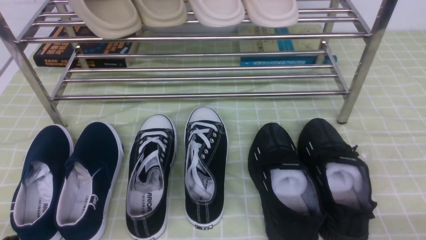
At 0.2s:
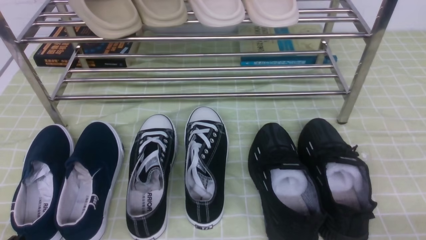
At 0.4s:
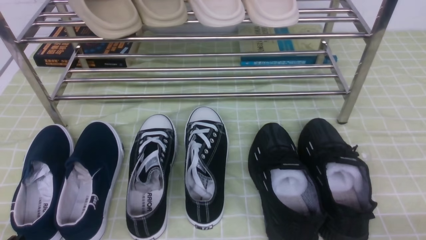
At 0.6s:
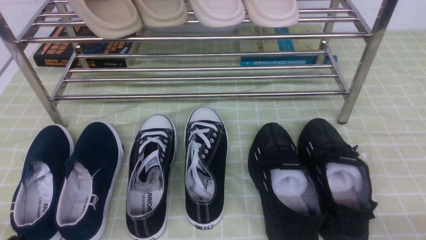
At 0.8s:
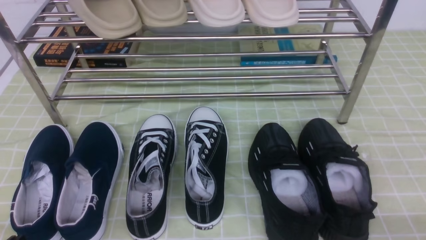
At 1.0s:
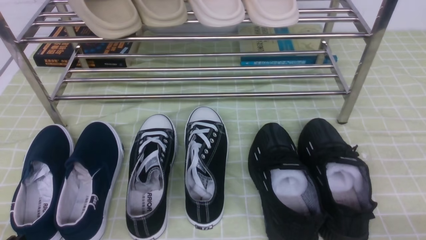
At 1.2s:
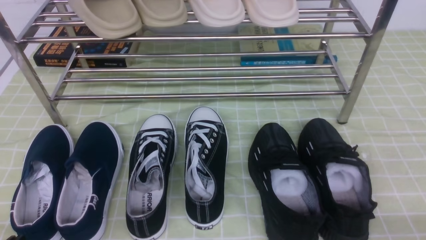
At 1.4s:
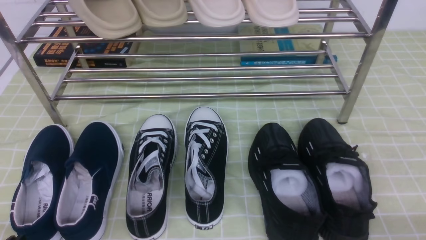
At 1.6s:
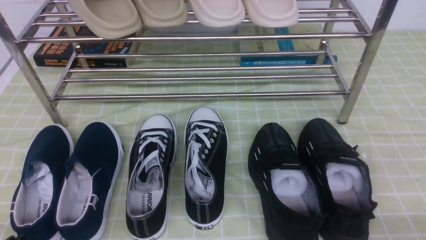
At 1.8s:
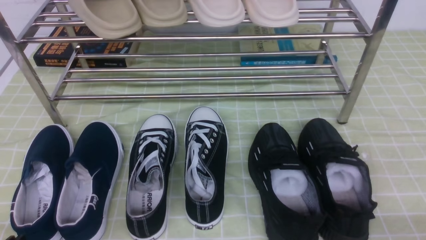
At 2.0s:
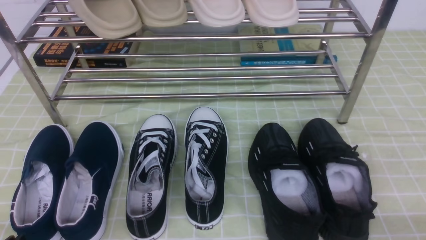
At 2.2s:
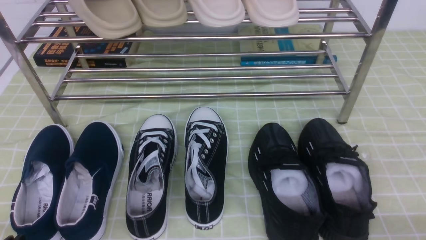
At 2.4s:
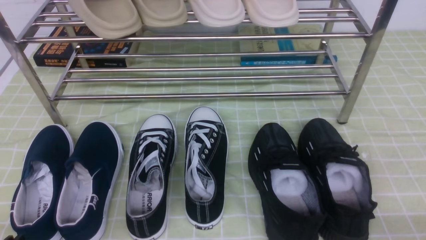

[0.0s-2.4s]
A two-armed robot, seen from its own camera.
0.0s to 2.4s: Both grippers stay about where they are.

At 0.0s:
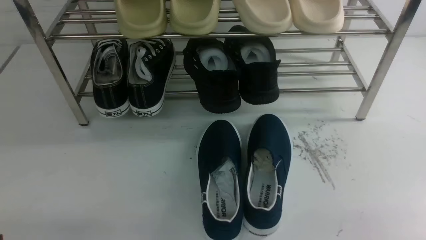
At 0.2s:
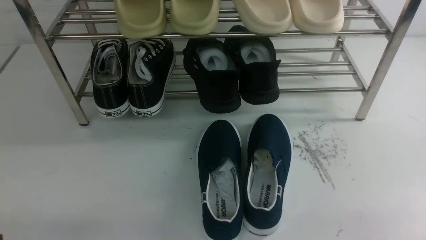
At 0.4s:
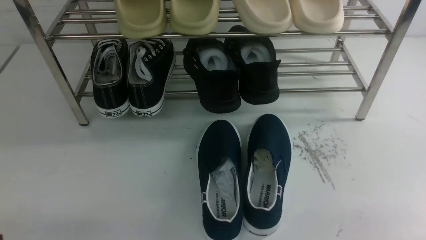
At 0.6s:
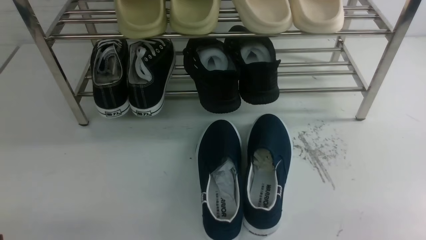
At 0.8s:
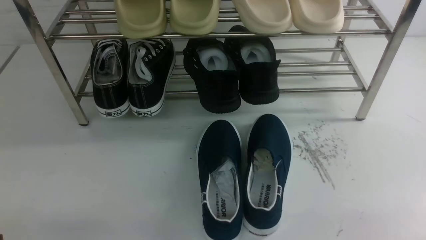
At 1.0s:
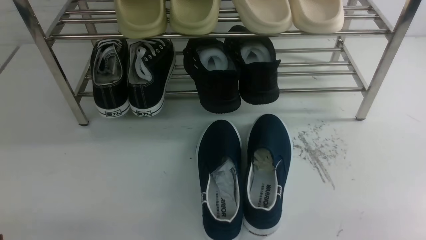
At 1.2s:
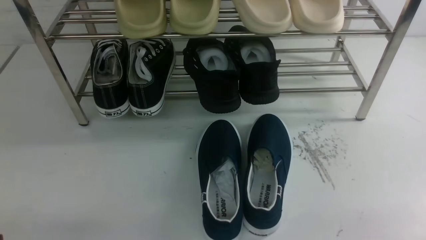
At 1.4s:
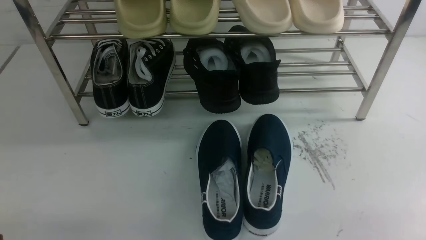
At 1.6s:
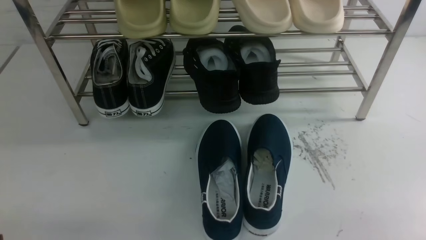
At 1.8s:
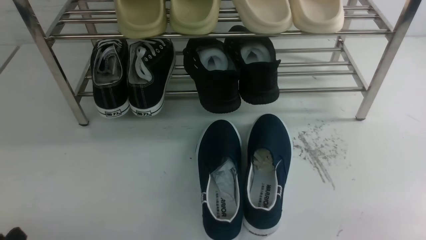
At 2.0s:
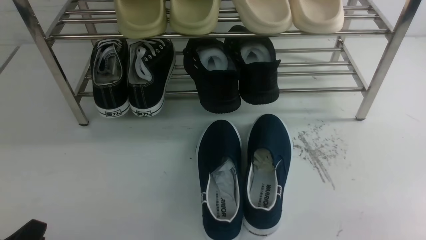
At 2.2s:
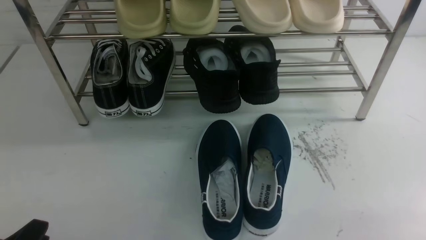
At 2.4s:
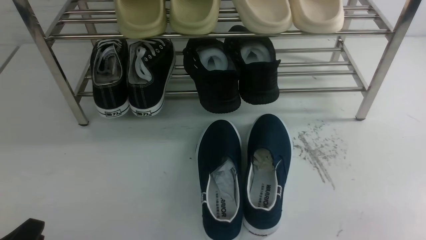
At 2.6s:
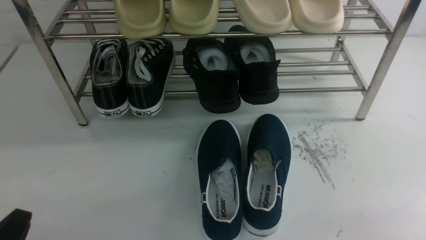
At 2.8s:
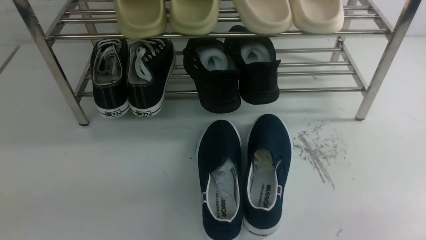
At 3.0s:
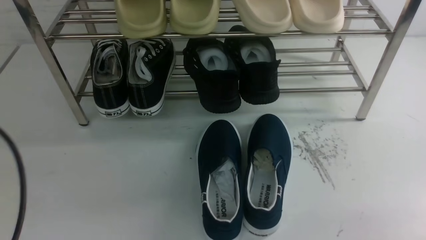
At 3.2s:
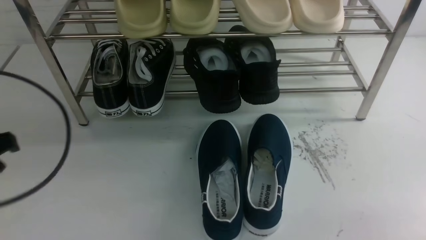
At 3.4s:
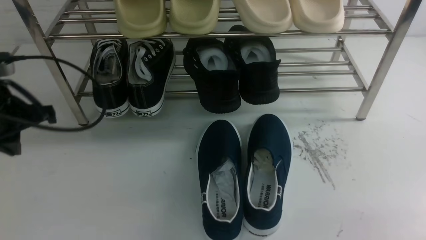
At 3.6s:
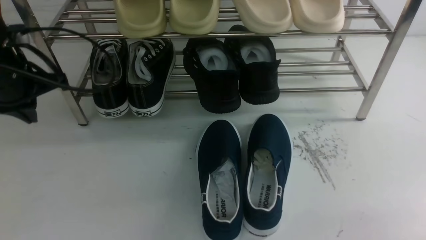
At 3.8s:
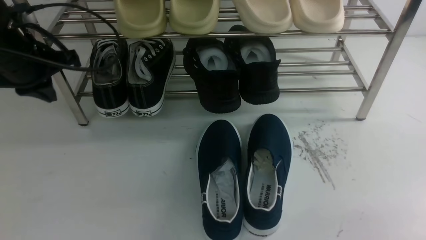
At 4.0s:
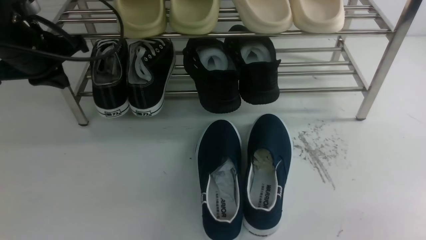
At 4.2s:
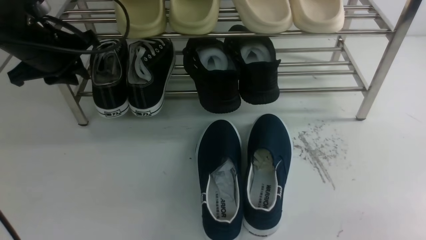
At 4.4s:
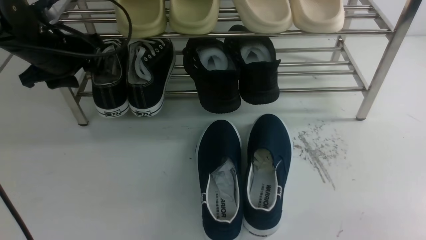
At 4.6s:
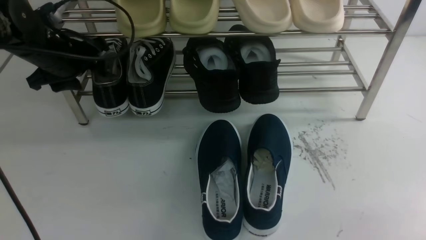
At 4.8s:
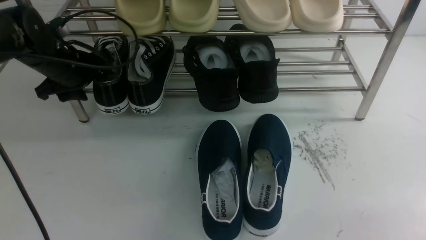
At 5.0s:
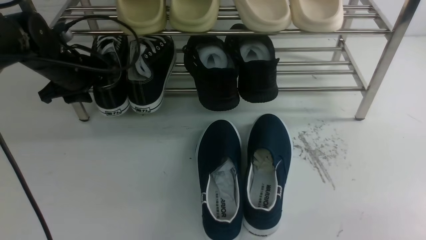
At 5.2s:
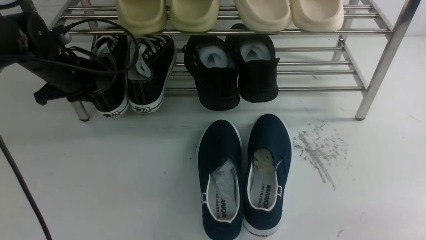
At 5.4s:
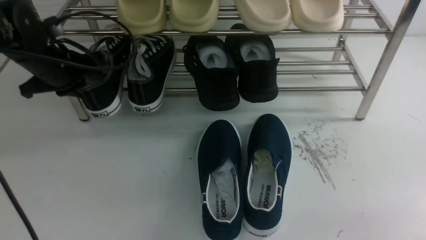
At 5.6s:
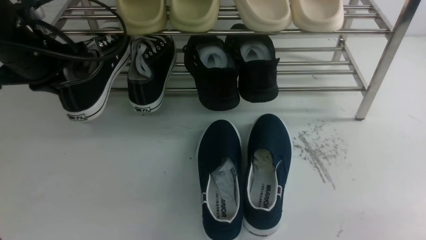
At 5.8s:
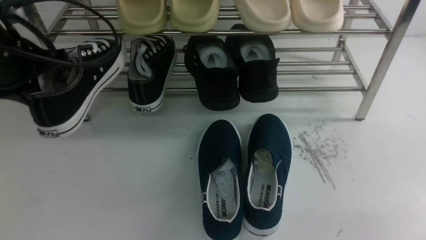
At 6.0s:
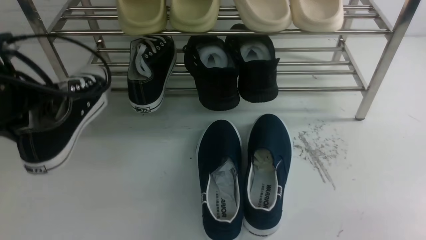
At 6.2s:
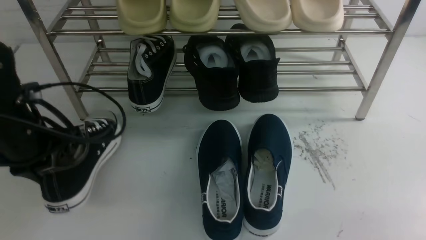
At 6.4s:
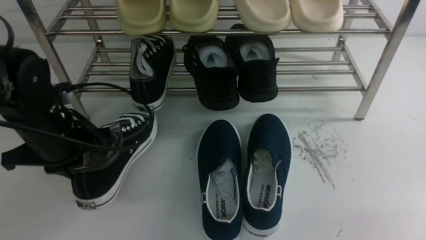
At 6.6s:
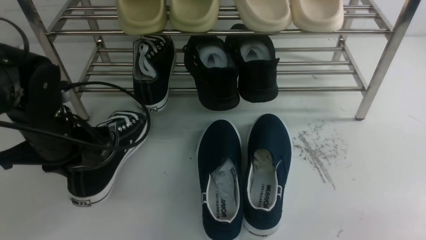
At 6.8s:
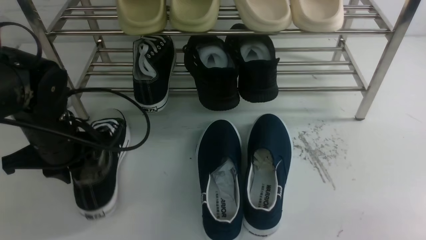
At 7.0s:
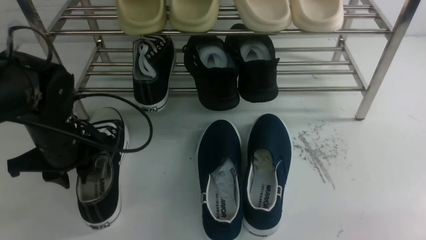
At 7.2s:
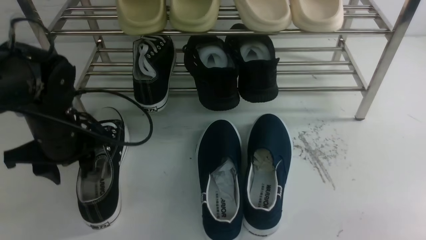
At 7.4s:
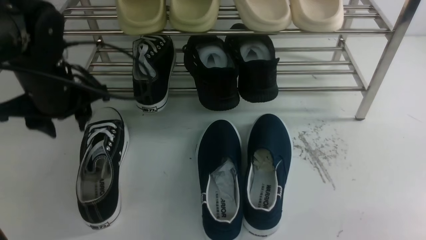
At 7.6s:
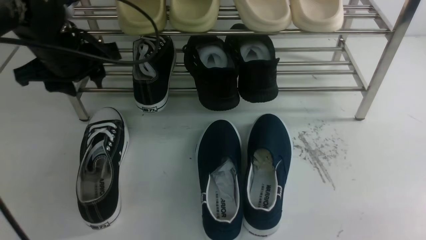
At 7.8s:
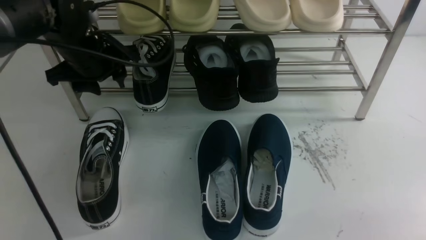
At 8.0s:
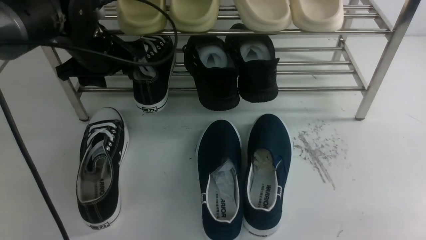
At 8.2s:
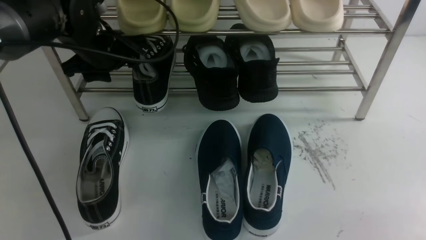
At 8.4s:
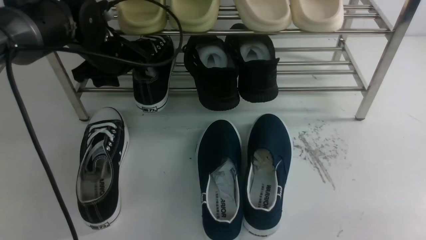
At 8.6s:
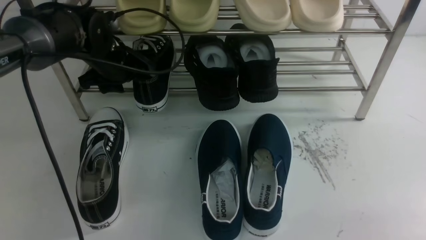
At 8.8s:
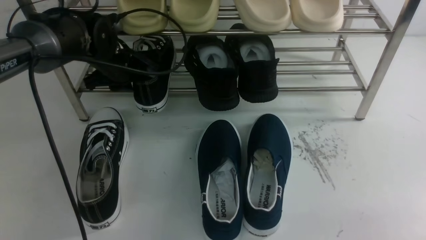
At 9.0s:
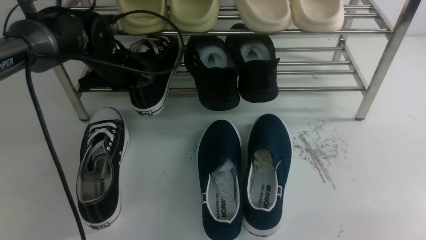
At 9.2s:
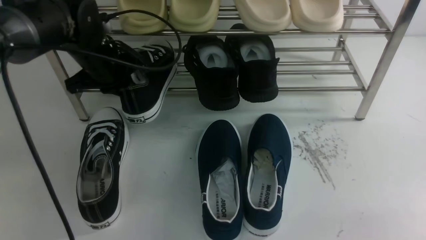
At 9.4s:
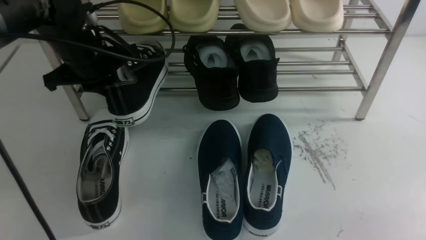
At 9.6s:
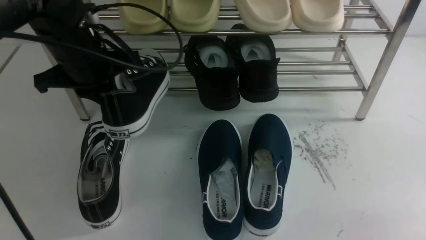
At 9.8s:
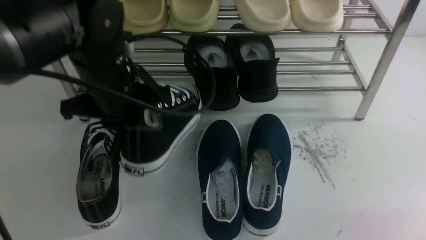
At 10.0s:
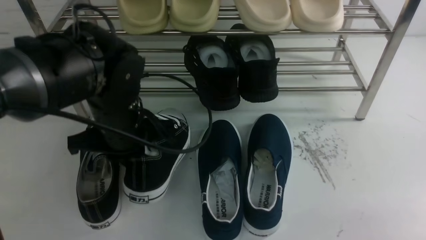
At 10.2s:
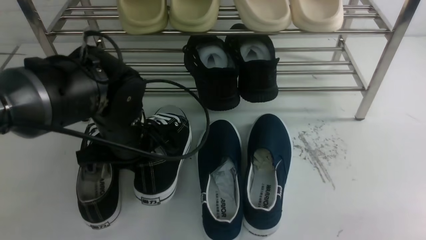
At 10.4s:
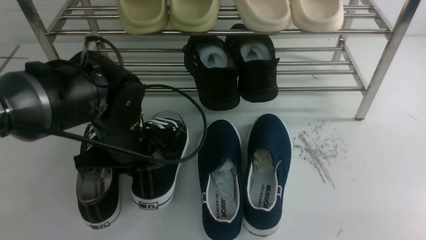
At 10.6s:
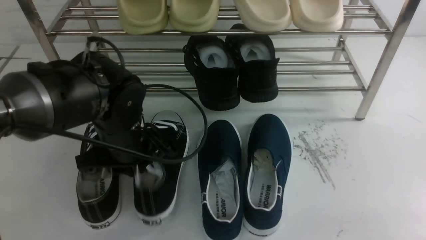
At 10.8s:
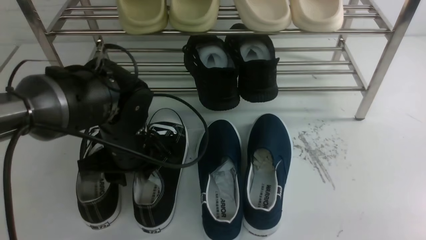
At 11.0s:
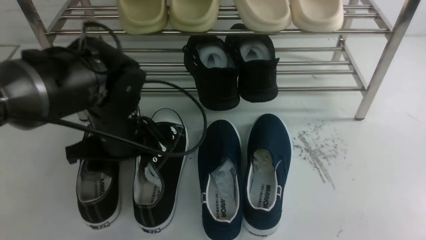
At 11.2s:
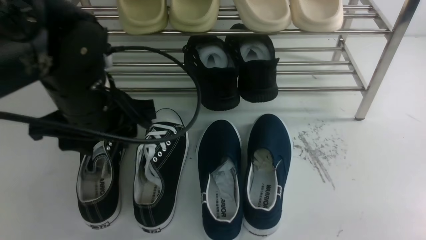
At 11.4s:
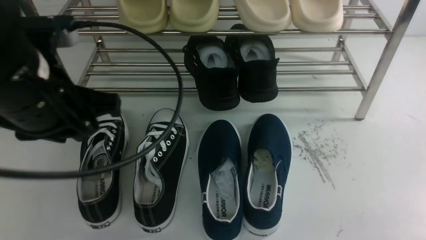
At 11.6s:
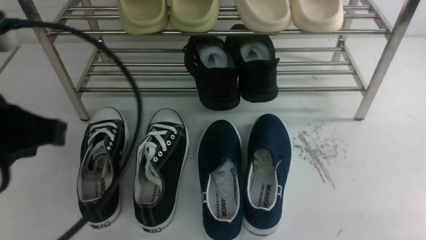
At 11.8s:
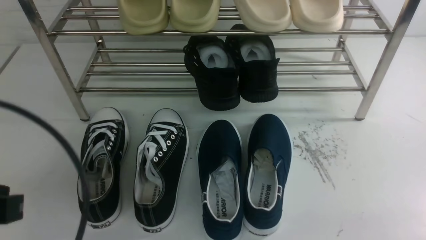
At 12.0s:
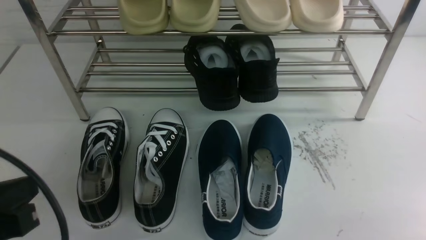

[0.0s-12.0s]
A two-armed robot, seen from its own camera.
Step, 0.0s to 5.6s: use the left arm to clamp a shoe on the left side of the shoe rack.
Step, 5.8s to 7.2s: Use your left arm to remove the clamped shoe from the shoe rack and put it down.
Step, 7.4s to 9.2s: use the left arm to clamp a shoe on the left side of the shoe rack.
Step, 9.6s to 10.8s: Use your left arm to remove the clamped shoe from the shoe rack and put it down.
1.6s to 3.0s: The left gripper heads upward and forward, covering approximately 15 cm, and closes its fingers.
3.0s to 4.4s: The left gripper shifts about 30 cm forward, and opens.
4.4s to 6.0s: The left gripper moves backward, approximately 10 cm, and closes up.
6.0s to 7.6s: The left gripper is displaced to the right and forward by about 10 cm, goes downward and returns, approximately 5 cm each way, and opens.
7.6s to 9.0s: The left gripper shifts about 5 cm forward, and closes its fingers.
9.0s to 10.4s: The left gripper heads backward, covering about 15 cm.
10.4s to 12.0s: The left gripper heads backward, to the left and upward, covering some 25 cm, and opens, then closes again.

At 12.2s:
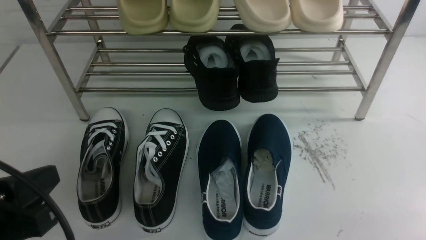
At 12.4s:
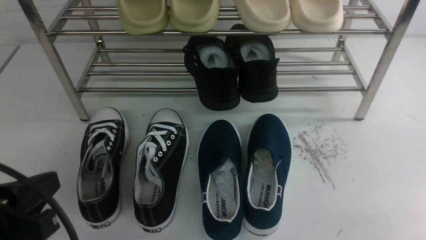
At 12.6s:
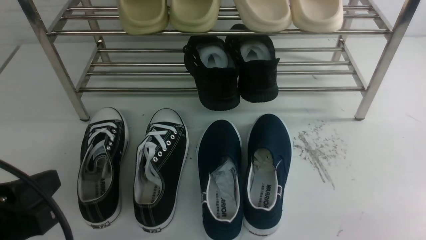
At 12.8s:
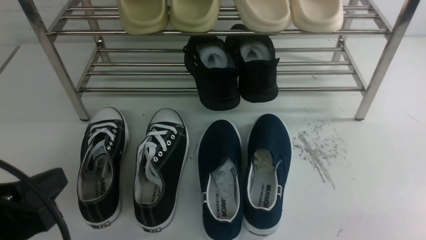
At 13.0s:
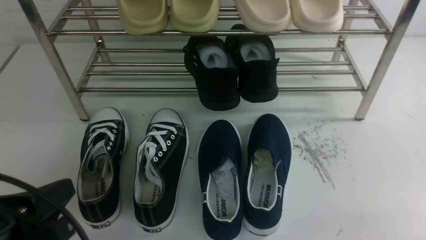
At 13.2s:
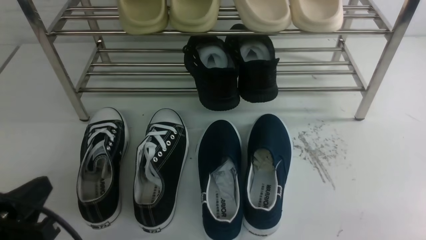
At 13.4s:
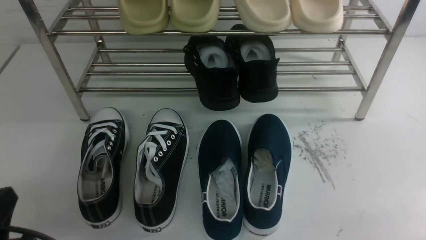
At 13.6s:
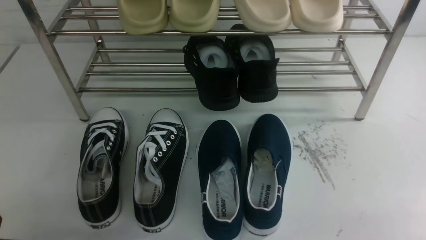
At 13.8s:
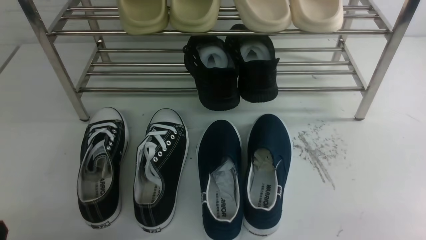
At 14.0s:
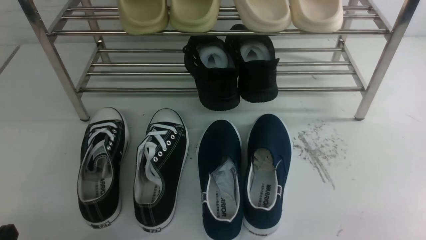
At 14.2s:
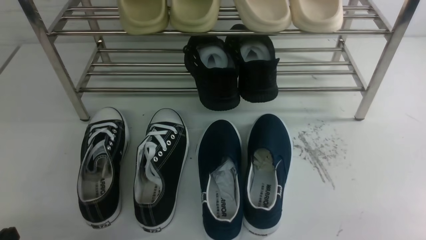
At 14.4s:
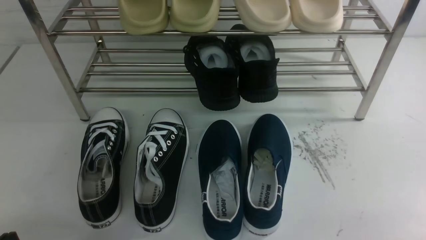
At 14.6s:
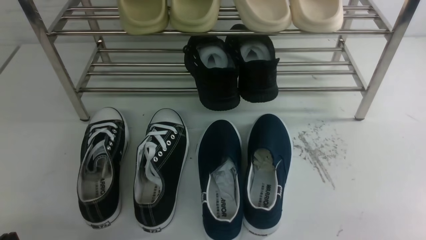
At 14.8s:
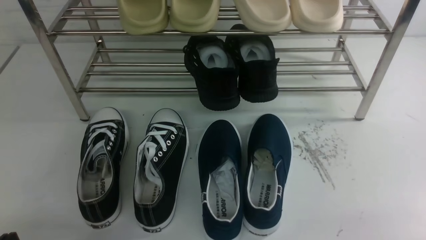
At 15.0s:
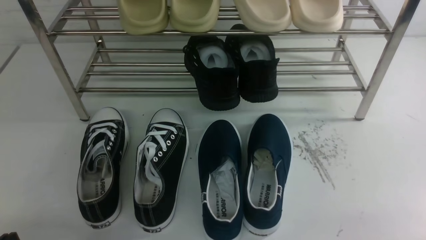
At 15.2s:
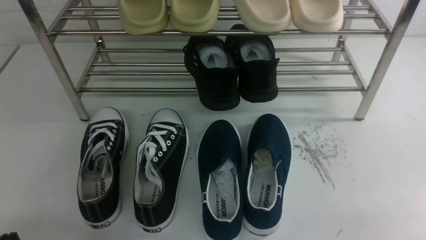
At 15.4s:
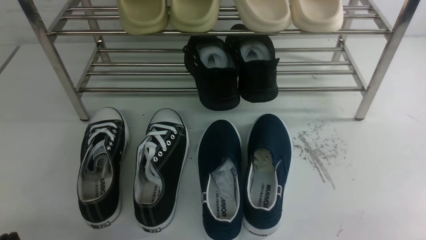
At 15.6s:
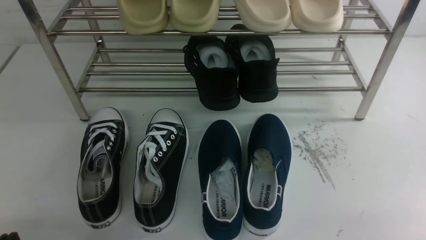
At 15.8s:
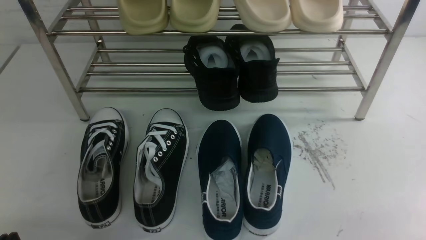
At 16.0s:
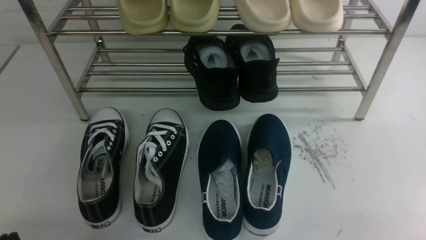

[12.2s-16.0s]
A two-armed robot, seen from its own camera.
12.2s to 13.4s: The left gripper heads downward, covering some 10 cm.
13.4s to 14.8s: The left gripper shifts by roughly 5 cm.
14.8s to 16.0s: Neither gripper changes place.
